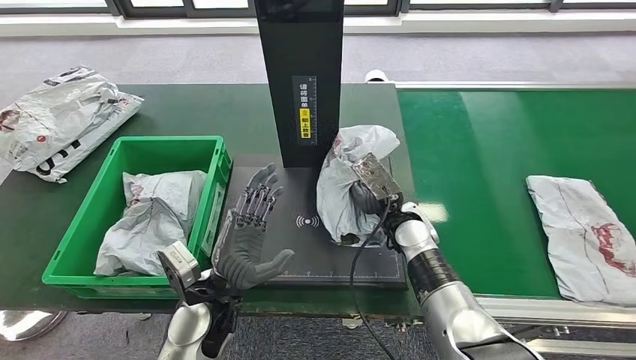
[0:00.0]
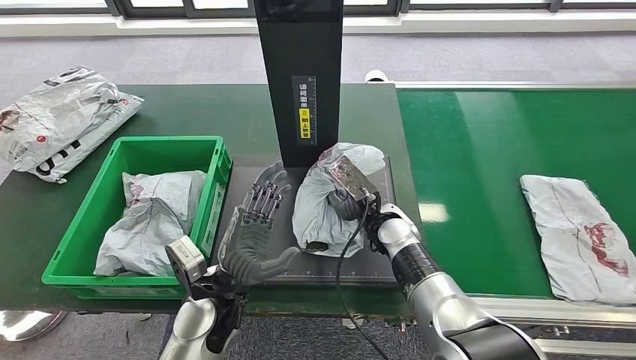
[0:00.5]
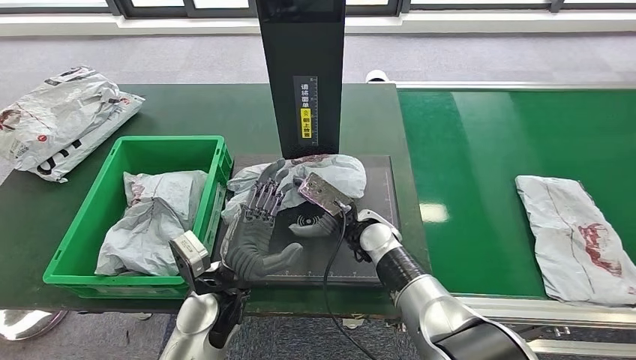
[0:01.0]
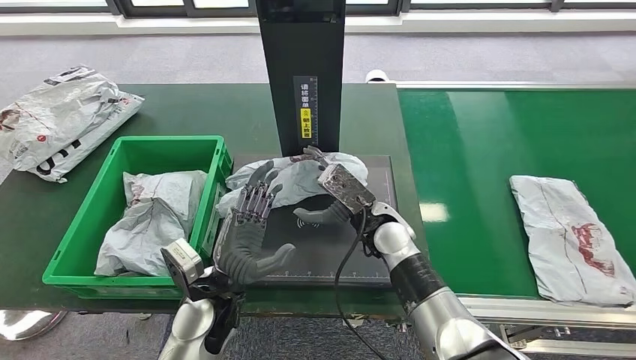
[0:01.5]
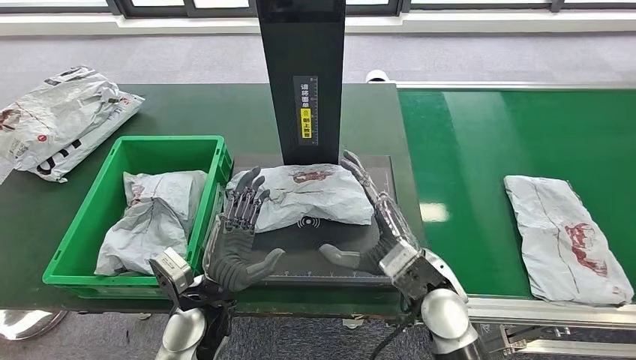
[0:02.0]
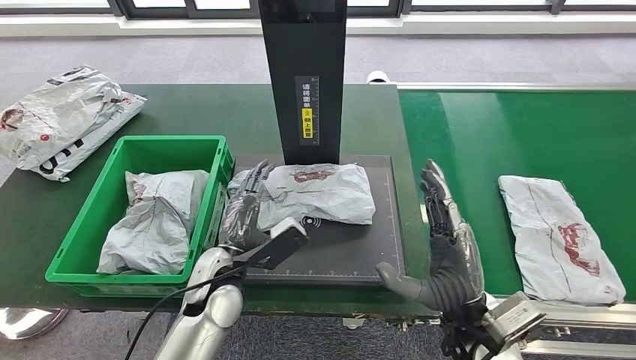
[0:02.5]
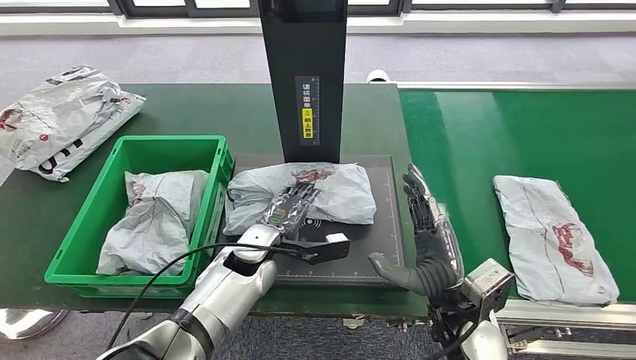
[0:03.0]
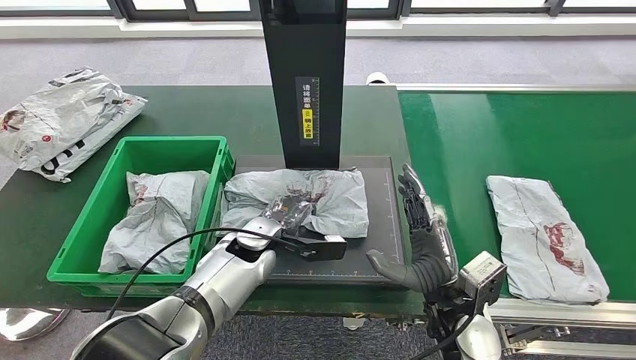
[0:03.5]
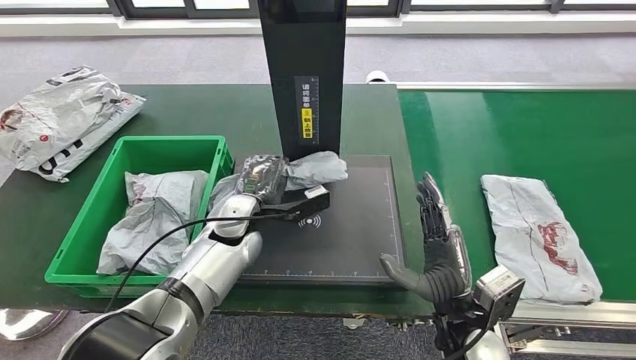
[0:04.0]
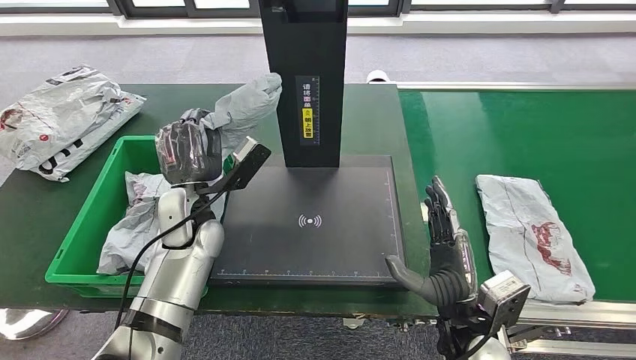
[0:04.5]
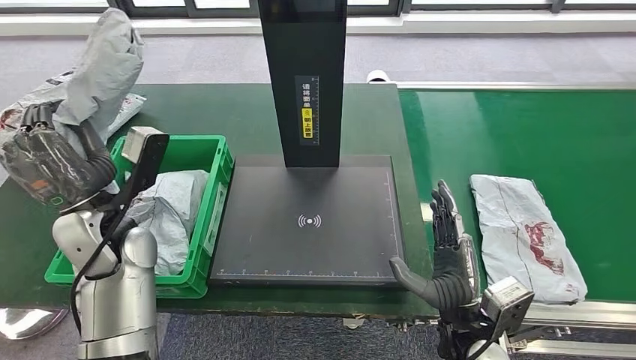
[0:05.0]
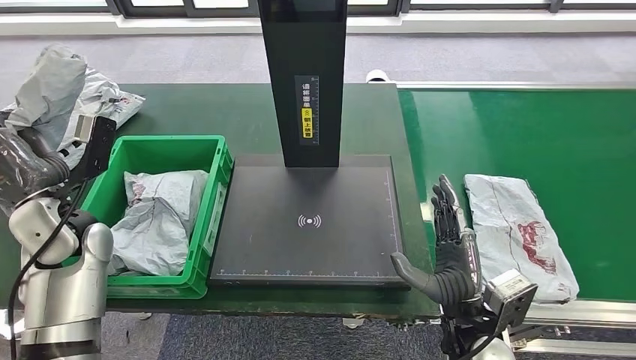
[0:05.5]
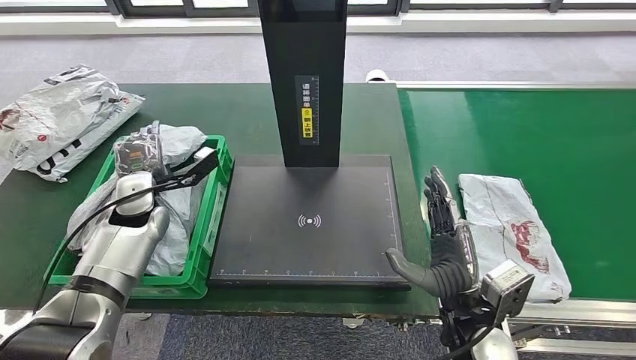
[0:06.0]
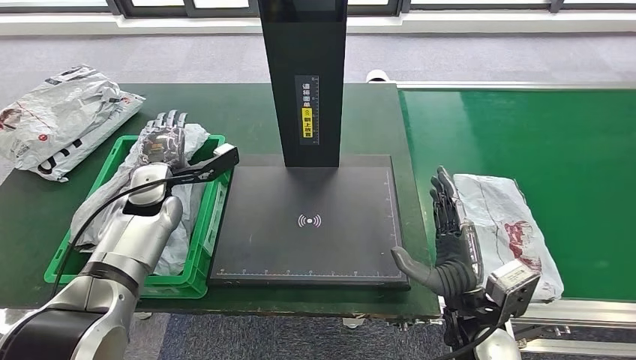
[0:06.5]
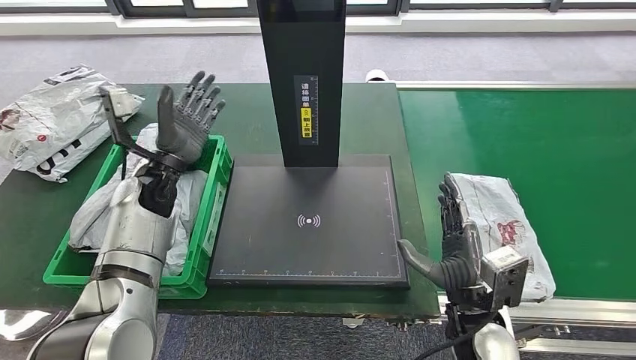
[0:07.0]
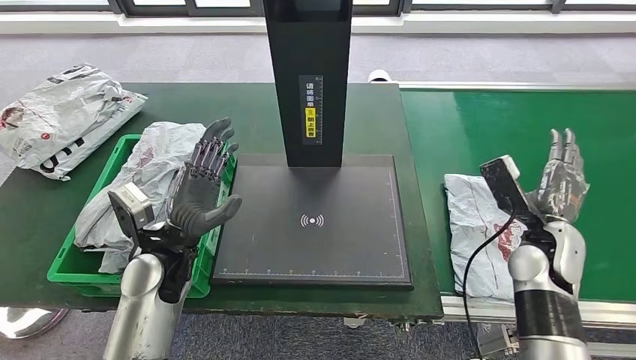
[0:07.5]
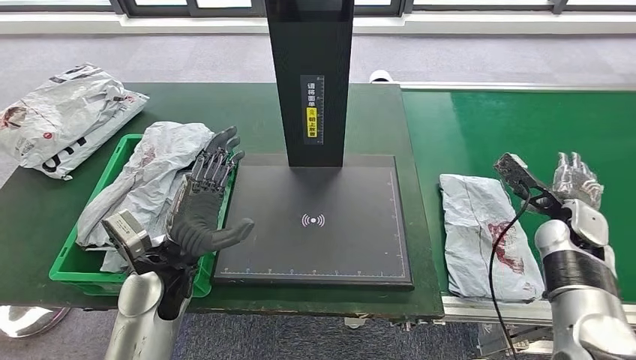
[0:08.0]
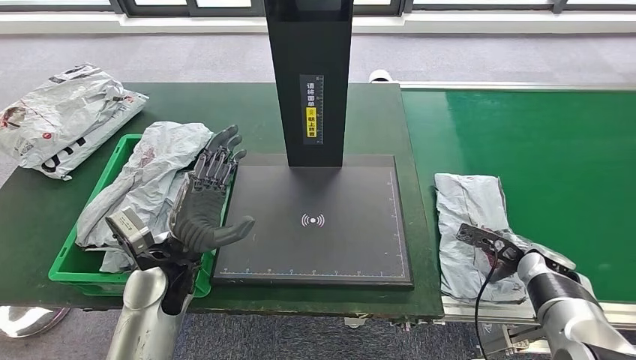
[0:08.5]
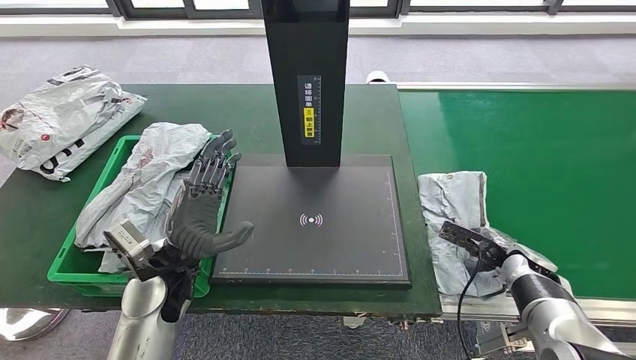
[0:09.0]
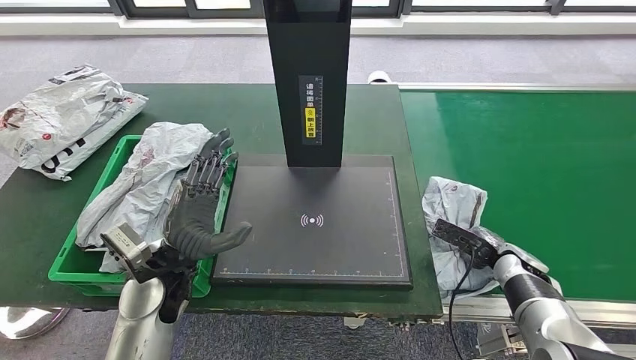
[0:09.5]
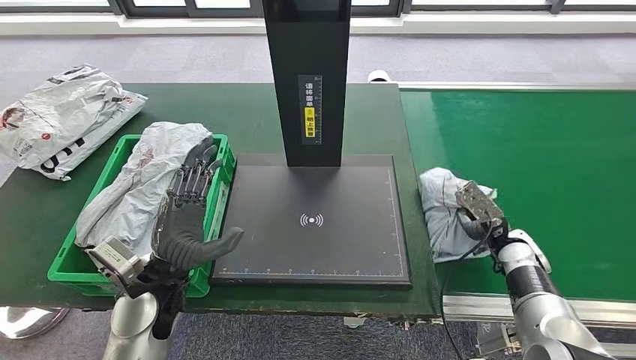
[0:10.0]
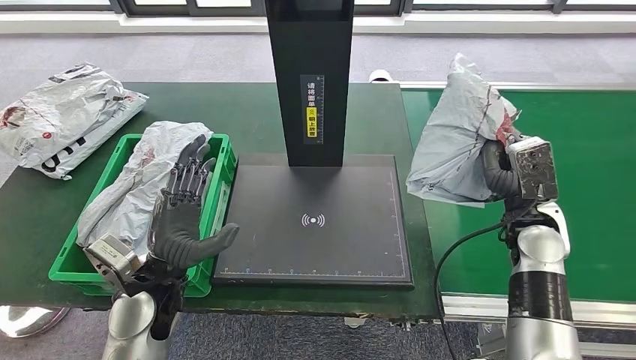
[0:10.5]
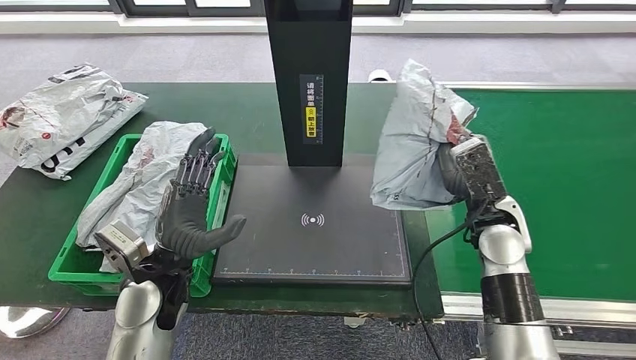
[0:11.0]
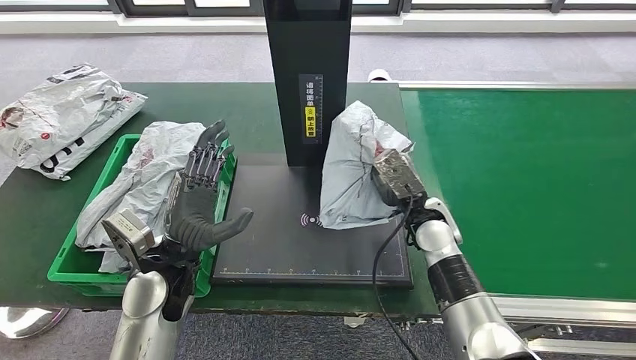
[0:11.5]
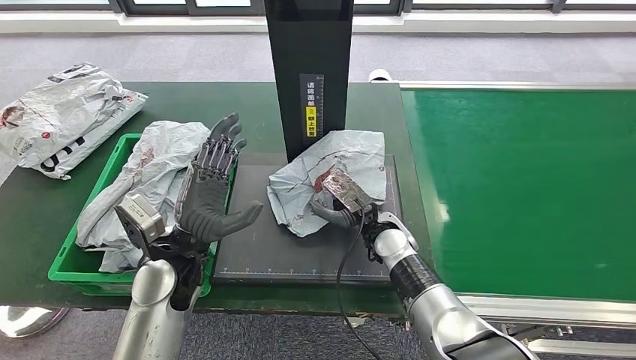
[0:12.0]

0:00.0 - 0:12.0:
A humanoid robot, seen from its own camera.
Step, 0:00.0 - 0:02.5: Place the parcel onto the inbound machine.
Step, 0:03.0 - 0:04.5: Pick up the parcel from the inbound machine.
Step, 0:05.5 - 0:07.5: Place the parcel into the delivery box.
Step, 0:09.0 - 0:10.5: Pick up the parcel from the conveyor belt.
0:00.0 - 0:02.0: The right hand moves backward and upward, about 10 cm.
0:08.0 - 0:10.0: The right hand goes approximately 10 cm downward and to the left.

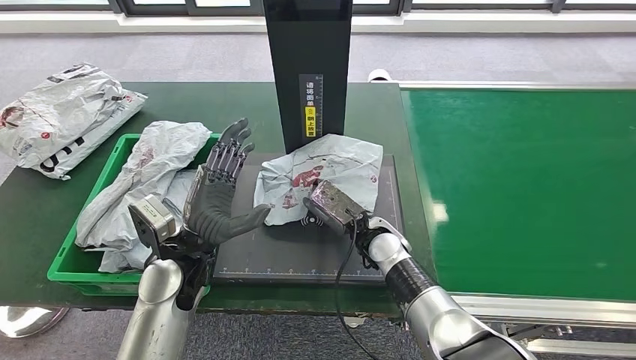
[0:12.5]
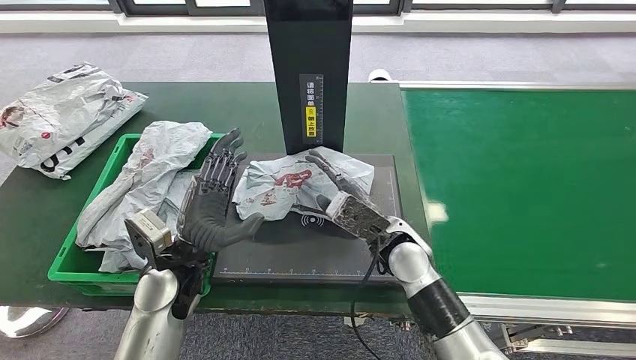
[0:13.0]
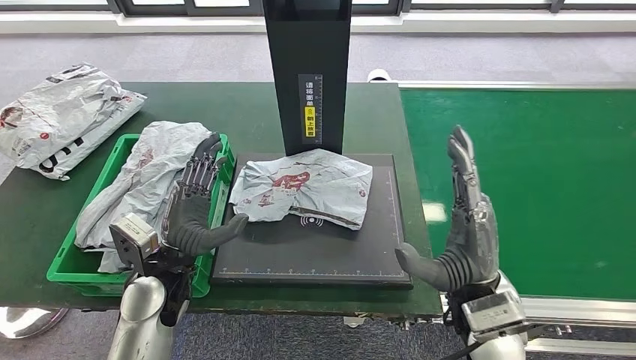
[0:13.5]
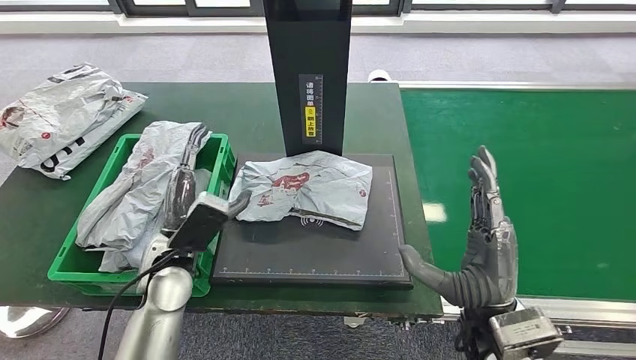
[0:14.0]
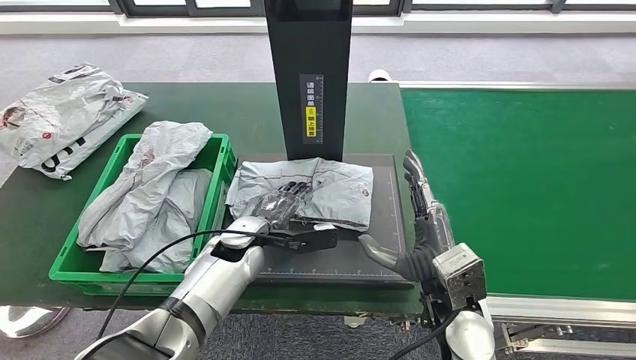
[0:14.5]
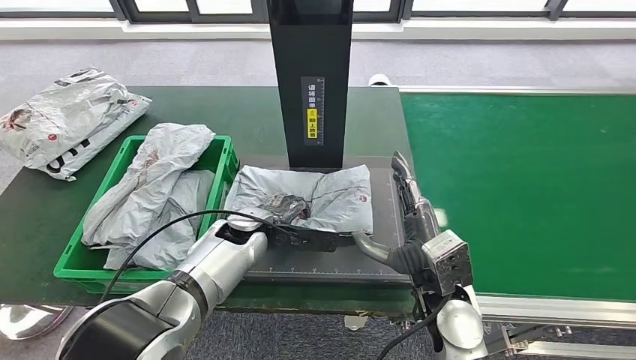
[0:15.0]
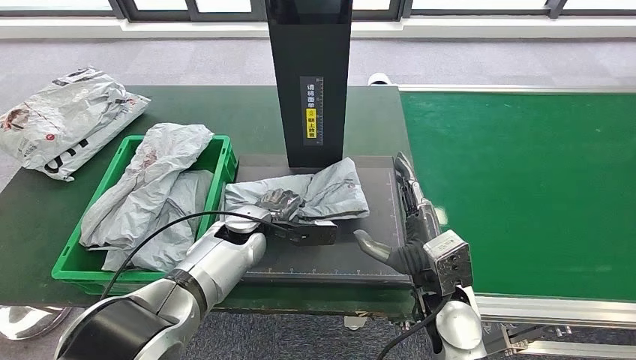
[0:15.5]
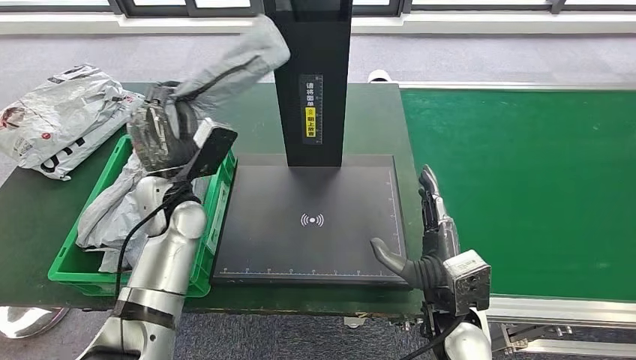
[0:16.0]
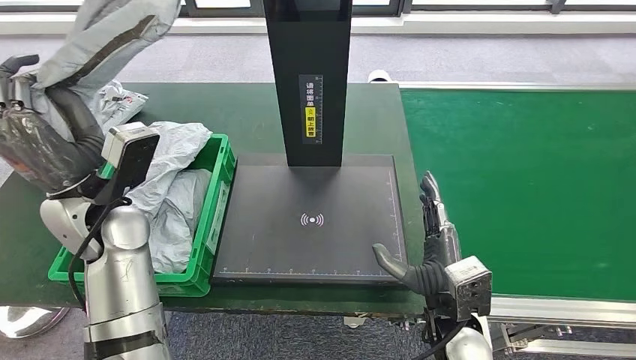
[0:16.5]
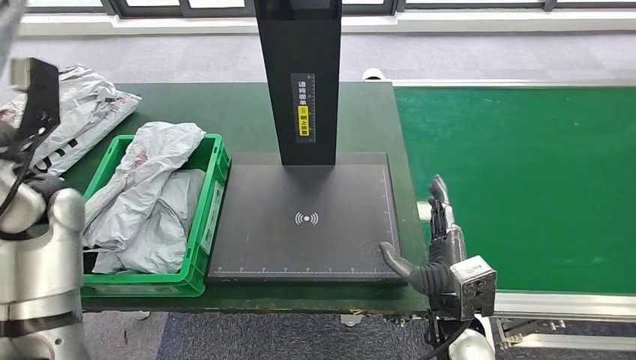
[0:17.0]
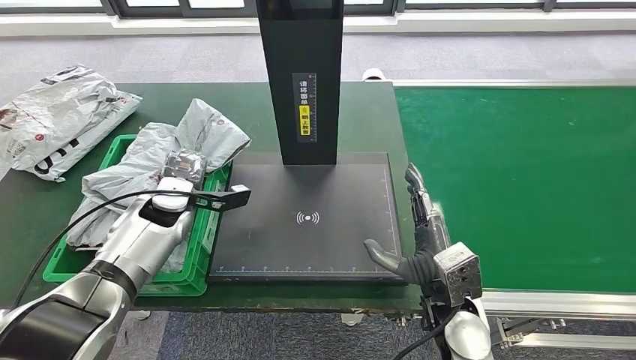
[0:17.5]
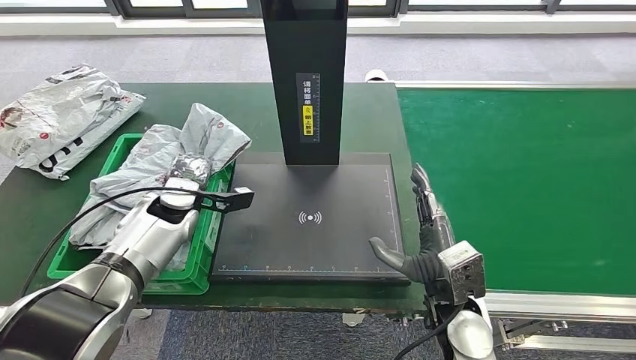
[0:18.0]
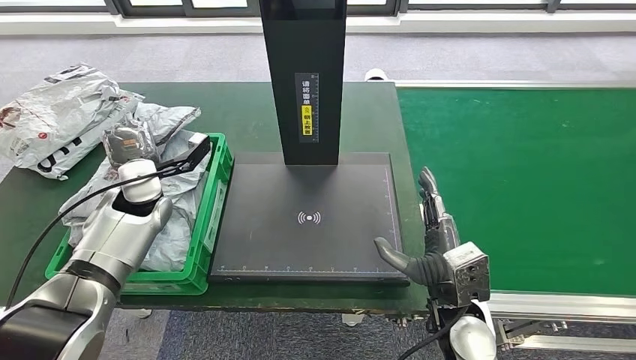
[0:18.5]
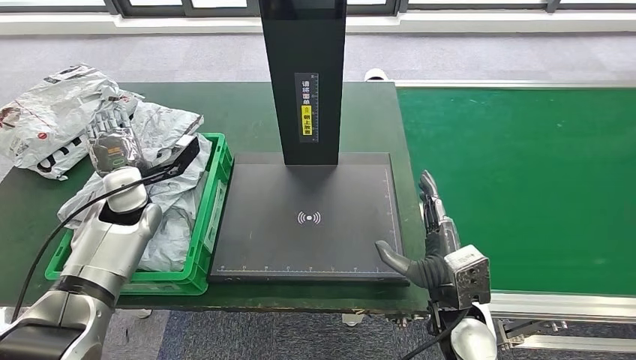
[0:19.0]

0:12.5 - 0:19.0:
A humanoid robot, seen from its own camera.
Step, 0:14.0 - 0:16.0: Pick up the parcel from the inbound machine.
Step, 0:16.5 - 0:19.0: Place the parcel into the delivery box.
0:12.5 - 0:14.5: The left hand moves forward, downward and to the right, some 10 cm; the right hand goes roughly 15 cm backward, to the right and upward.
